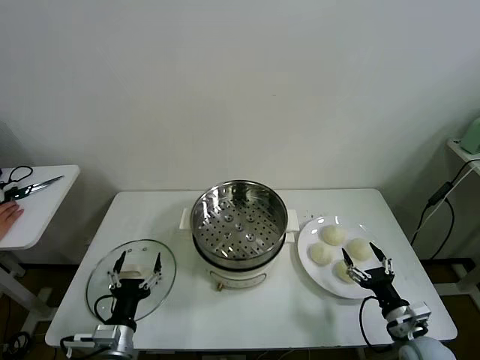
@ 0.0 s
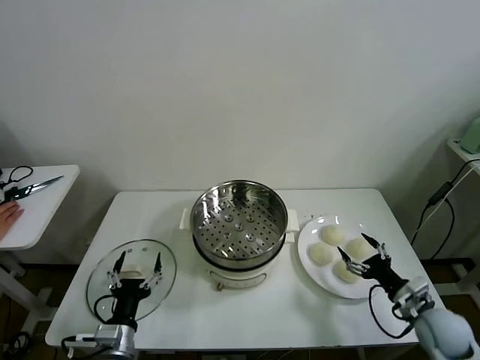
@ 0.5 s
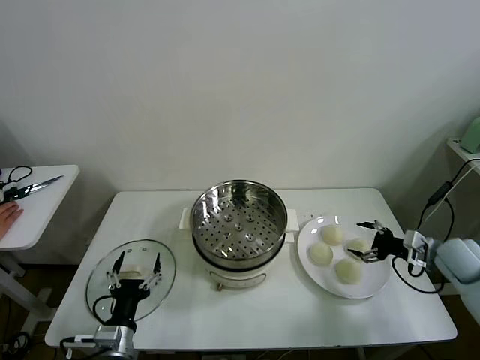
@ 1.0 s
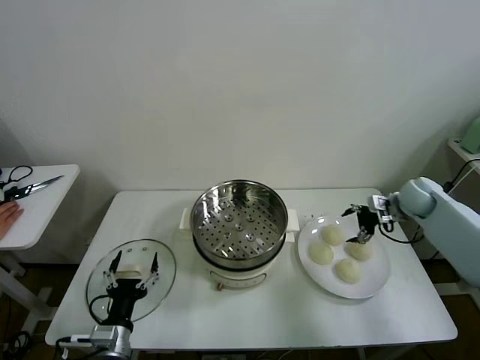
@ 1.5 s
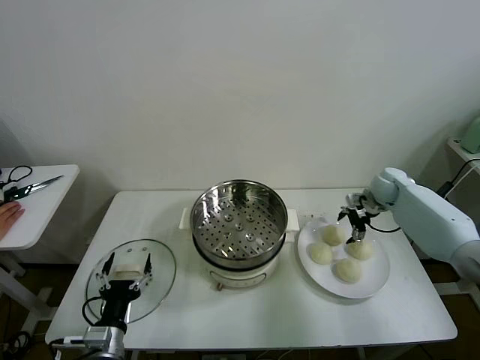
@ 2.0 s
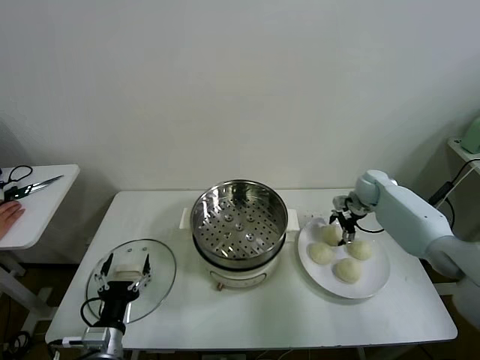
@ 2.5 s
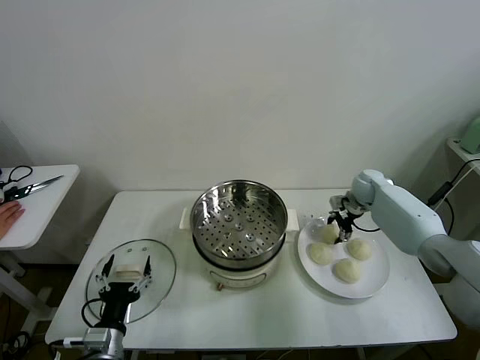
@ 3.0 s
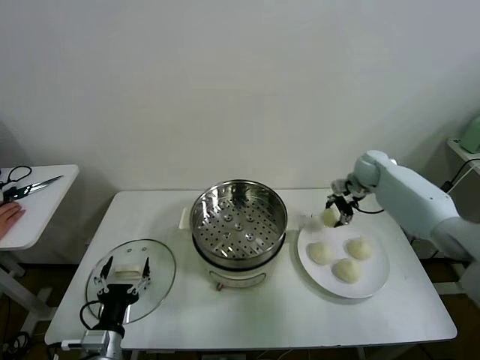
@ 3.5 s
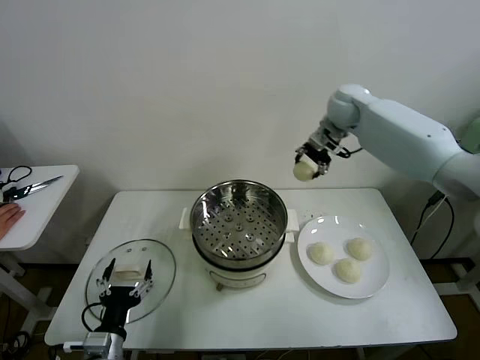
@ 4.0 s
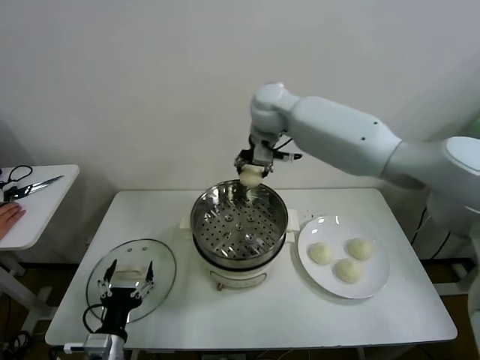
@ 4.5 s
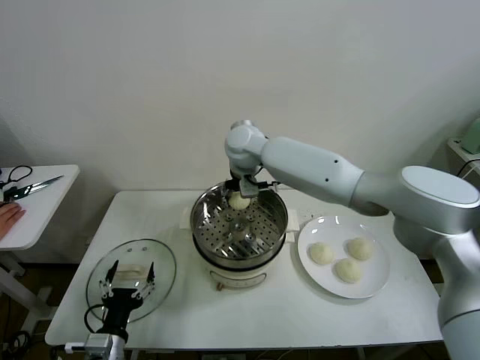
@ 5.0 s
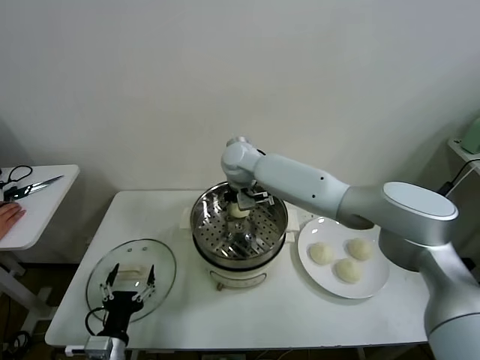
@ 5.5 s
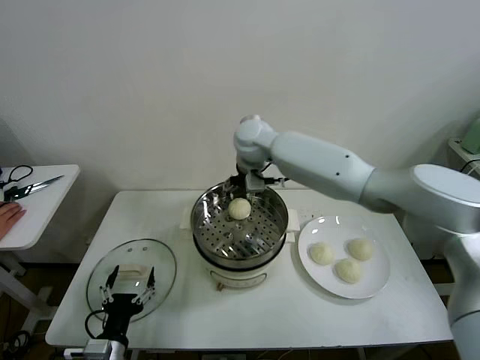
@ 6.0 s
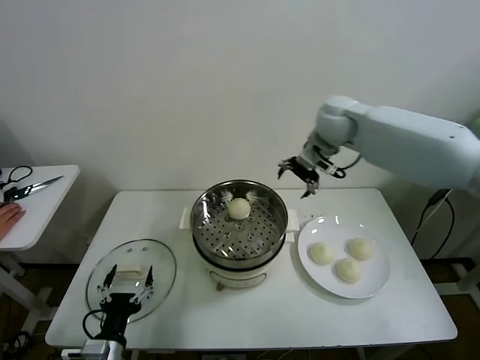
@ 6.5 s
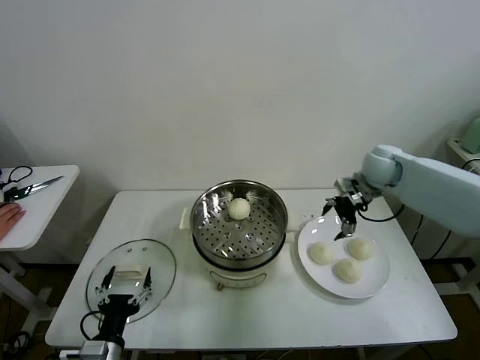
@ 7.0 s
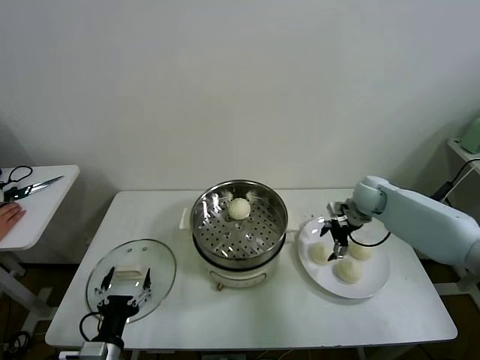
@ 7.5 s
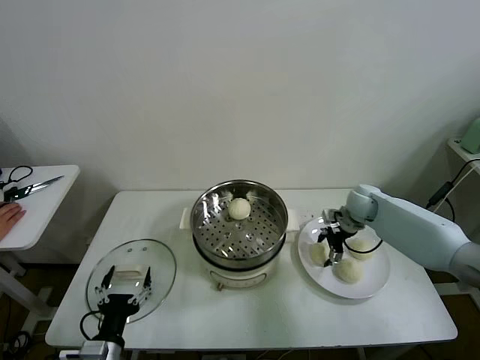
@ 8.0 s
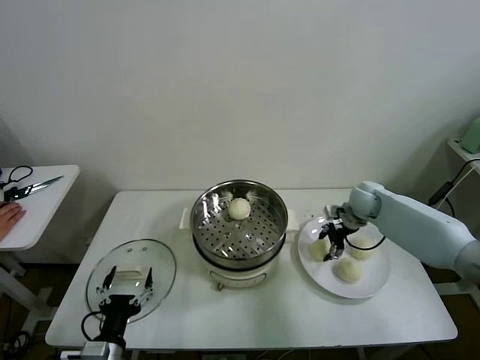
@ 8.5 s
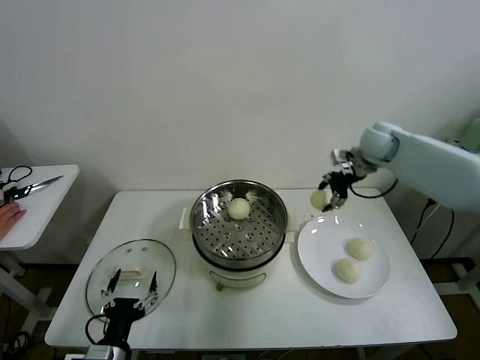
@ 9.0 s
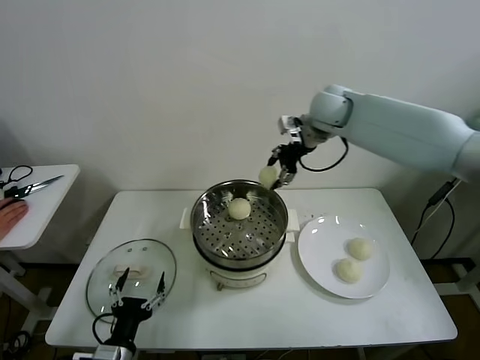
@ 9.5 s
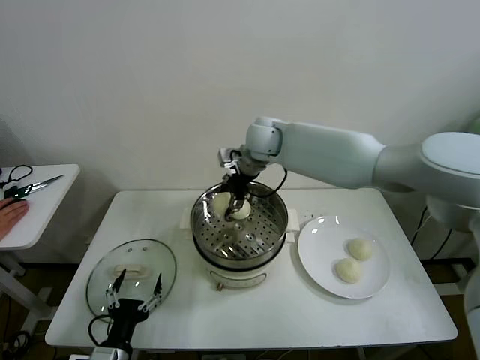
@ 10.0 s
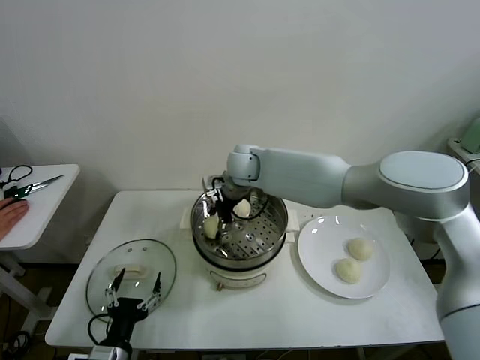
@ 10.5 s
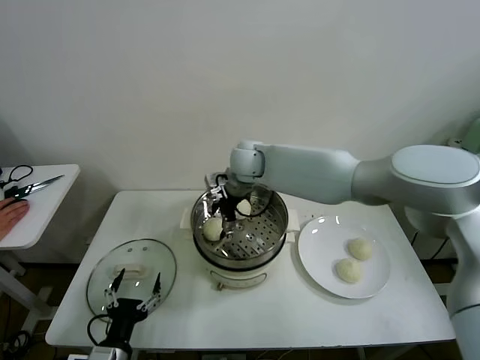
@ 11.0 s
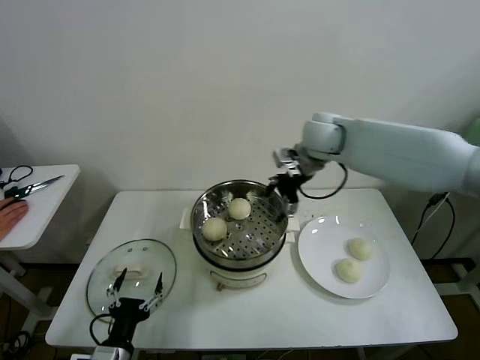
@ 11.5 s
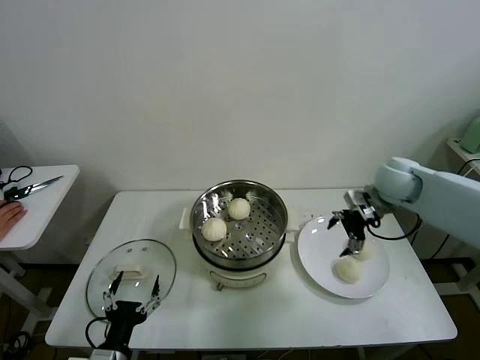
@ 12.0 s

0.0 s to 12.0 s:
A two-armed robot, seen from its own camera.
Task of the whole recording: take steamed baozi put them in steamer then cover it.
Step, 0.0 to 3.0 s: Grasp the baozi in the plate with right gripper.
Step, 3.5 to 5.5 s: Place the baozi on the steamer with right gripper.
Step, 6.0 to 8.0 s: Grasp the baozi in the plate with right gripper.
Step, 8.5 to 10.5 s: Place the baozi on the steamer with right gripper.
2.0 to 4.0 s: The right gripper moves upward and to the left, approximately 35 cm, and closes its fingers.
4.0 to 6.0 s: The right gripper moves to the left, some 10 cm, and opens up.
6.0 to 8.0 s: The right gripper travels to the right and downward by some 35 cm, and closes its fingers.
8.0 to 10.0 s: The right gripper moves to the left and upward, some 35 cm.
10.0 to 12.0 s: The right gripper shifts some 35 cm to the right, and opens.

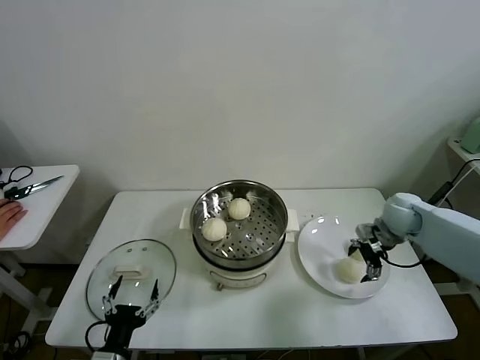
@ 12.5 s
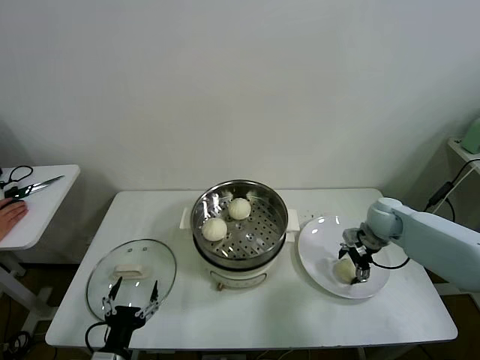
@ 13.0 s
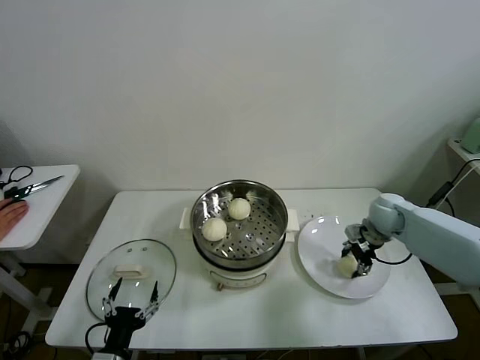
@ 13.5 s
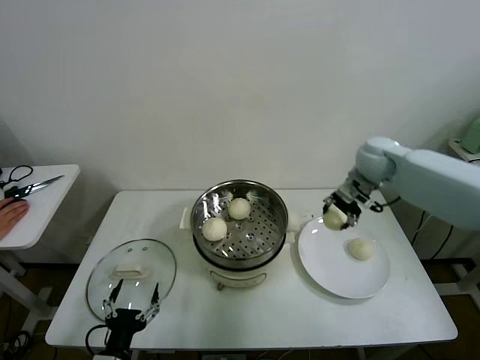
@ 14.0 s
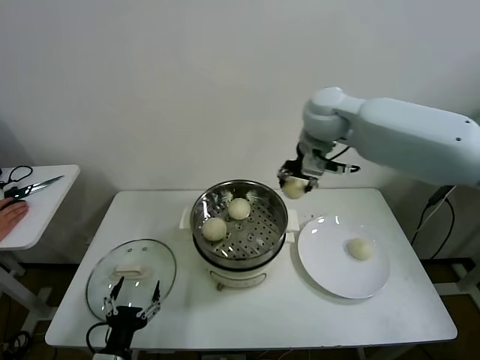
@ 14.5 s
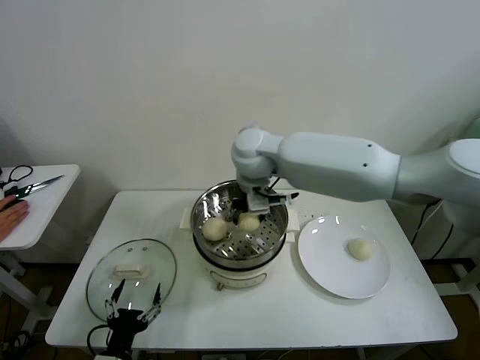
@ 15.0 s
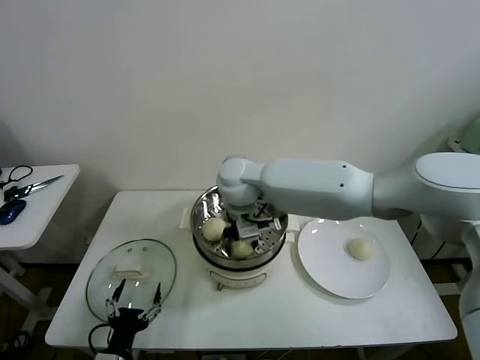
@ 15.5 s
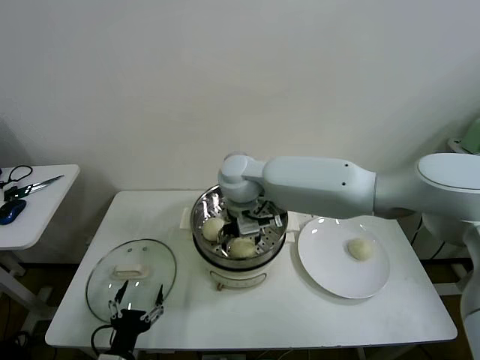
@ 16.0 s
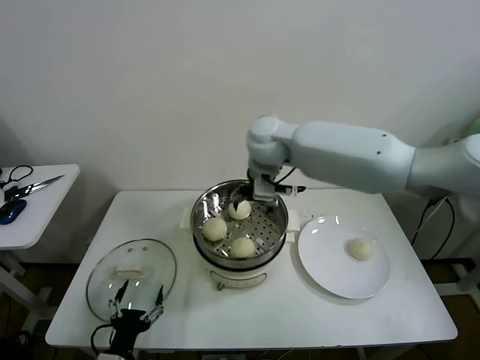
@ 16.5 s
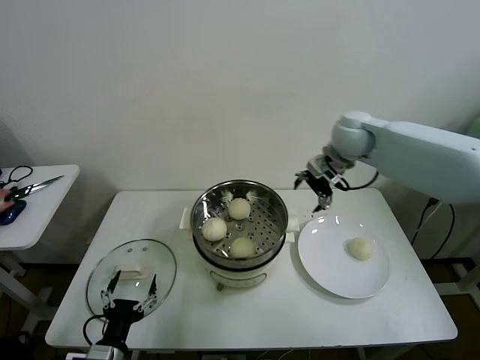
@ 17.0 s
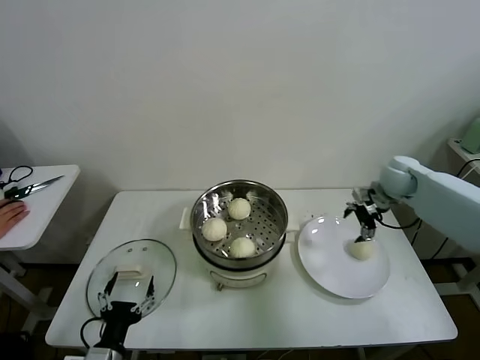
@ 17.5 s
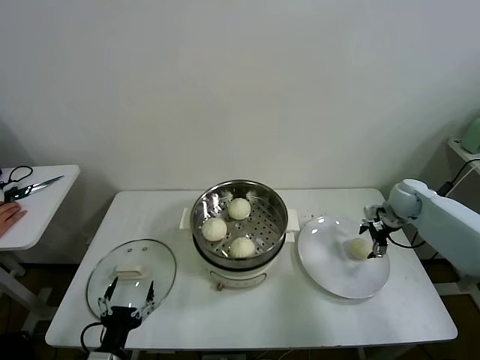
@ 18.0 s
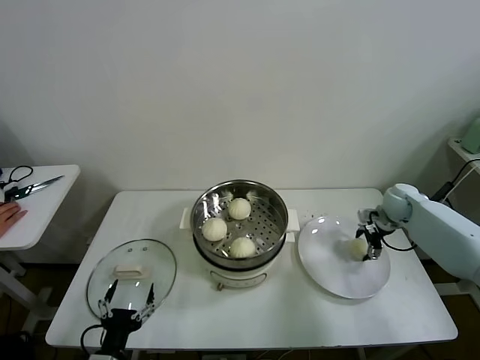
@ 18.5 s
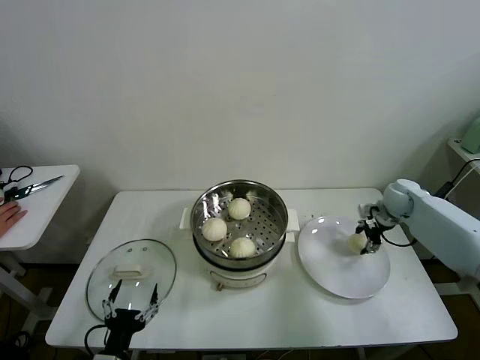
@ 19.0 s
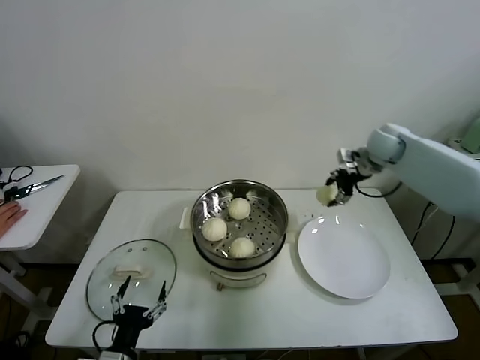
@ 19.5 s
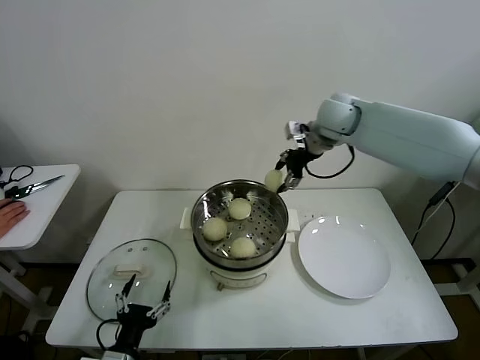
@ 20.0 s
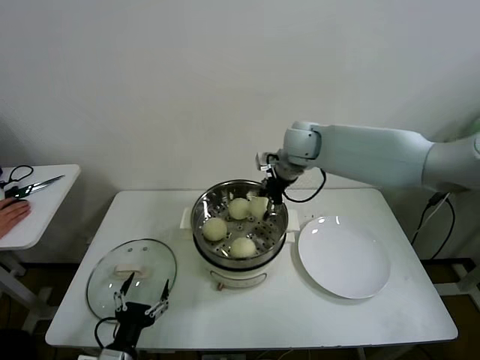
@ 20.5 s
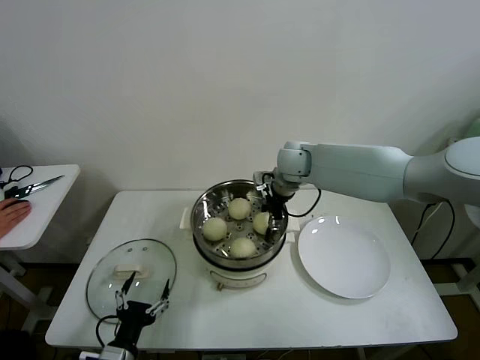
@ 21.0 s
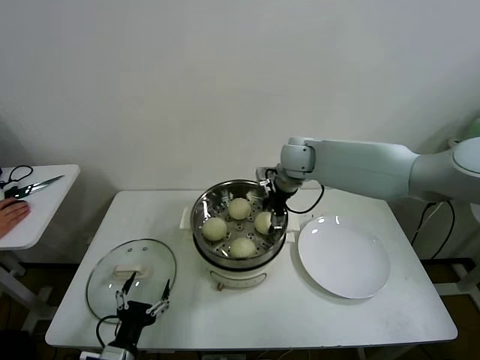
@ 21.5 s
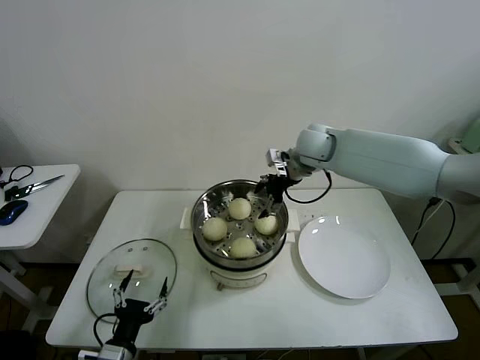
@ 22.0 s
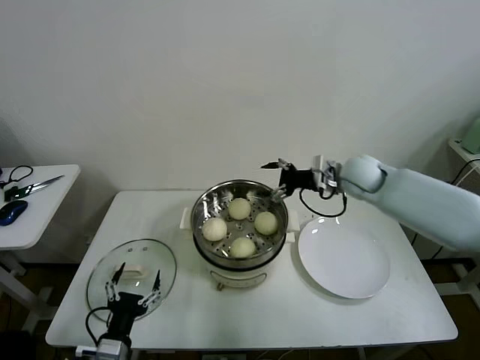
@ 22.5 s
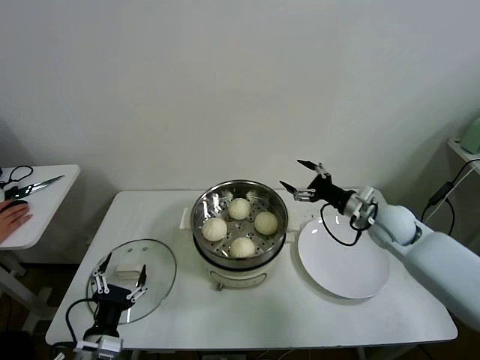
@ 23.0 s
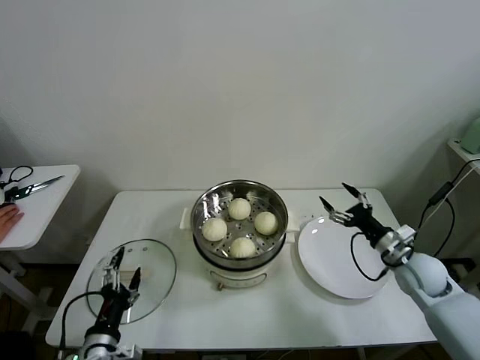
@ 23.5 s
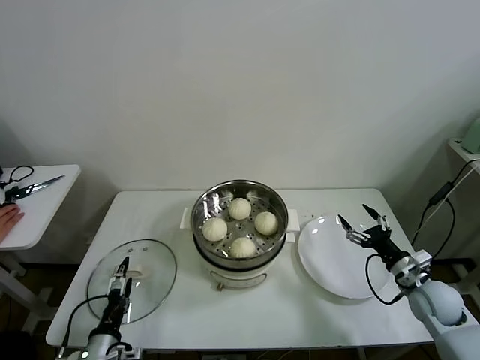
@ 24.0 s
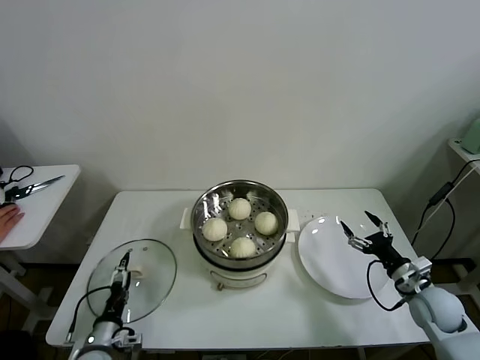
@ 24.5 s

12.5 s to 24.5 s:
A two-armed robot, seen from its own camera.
Task of the whole recording: take steamed baozi put them in steamer then cover it.
Step, 13.5 to 16.0 s: Place the baozi on the steamer with right gripper.
Step, 16.5 to 18.5 s: Grasp the baozi in the plate with right gripper.
Step, 19.0 to 21.0 s: Place the baozi on the steamer with right gripper.
12.5 to 14.5 s: The right gripper is displaced to the left and upward by about 35 cm, and closes its fingers.
14.5 to 16.5 s: The right gripper reaches approximately 15 cm to the left, then returns, and opens up.
16.5 to 18.5 s: The right gripper heads to the right and downward, covering roughly 40 cm, and closes.
18.5 to 20.5 s: The right gripper is displaced to the left and upward by approximately 35 cm, and closes its fingers.
20.5 to 22.5 s: The right gripper travels to the right and downward by approximately 15 cm, and opens its fingers.
22.5 to 24.5 s: The right gripper moves backward, downward and to the right, approximately 30 cm. The left gripper travels downward, to the left and forward by roughly 10 cm.

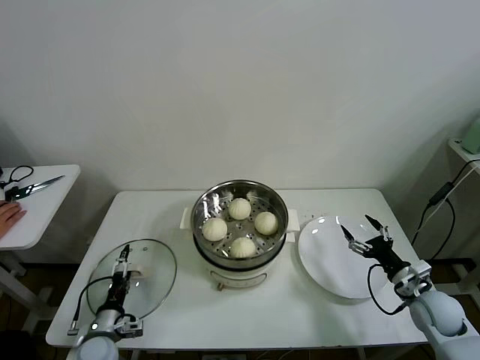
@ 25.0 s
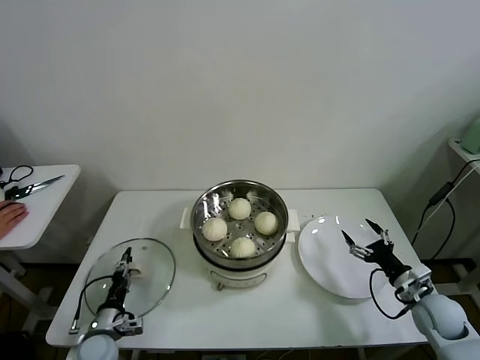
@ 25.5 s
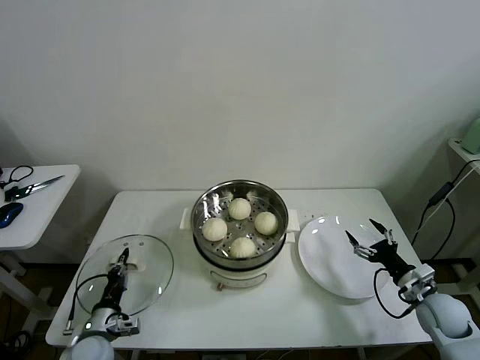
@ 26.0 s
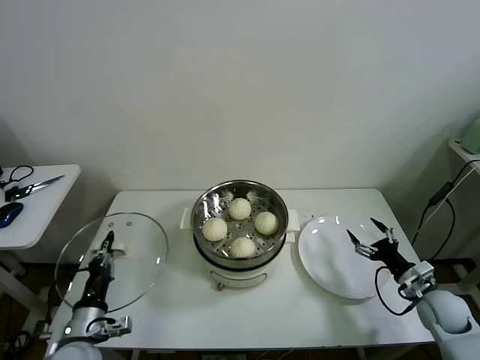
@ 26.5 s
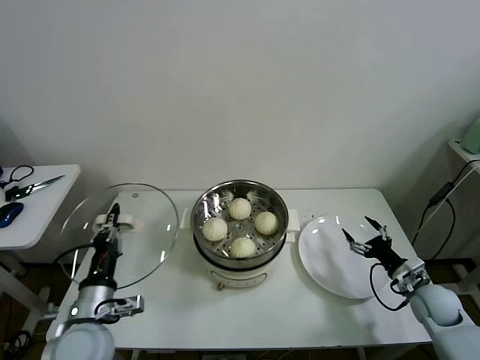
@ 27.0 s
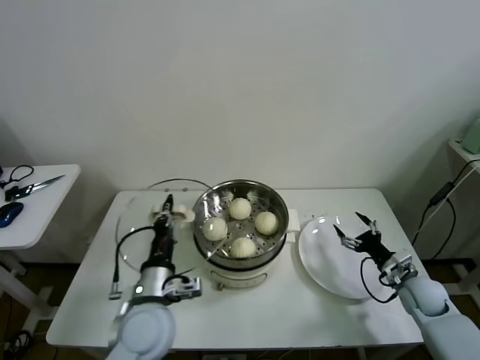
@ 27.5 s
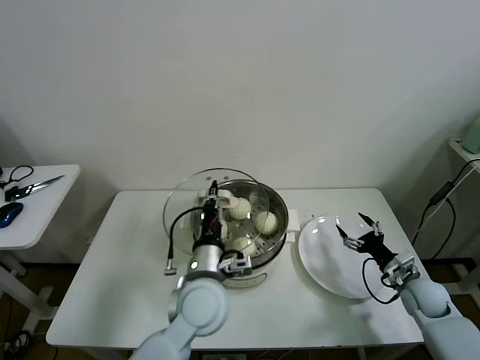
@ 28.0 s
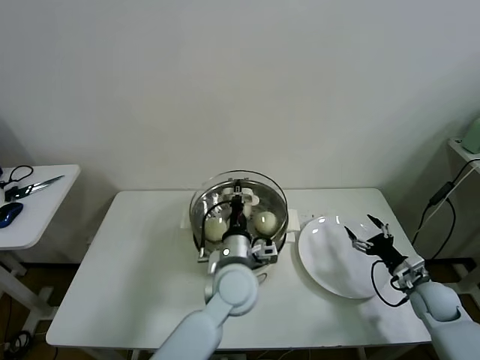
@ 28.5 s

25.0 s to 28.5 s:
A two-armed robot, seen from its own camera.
Task of the whole recording: take steamed baozi put them in steamer then cover it.
25.0 to 27.0 s: The left gripper is displaced upward by approximately 15 cm, and closes its fingers.
27.0 to 28.5 s: The left gripper moves to the right and forward, some 30 cm.
